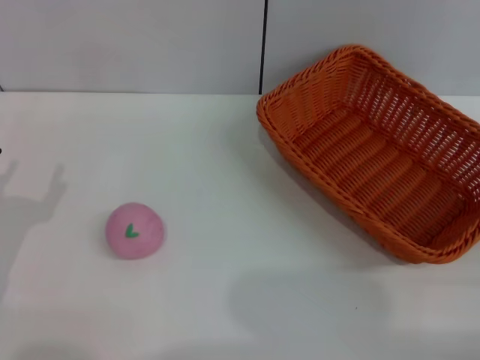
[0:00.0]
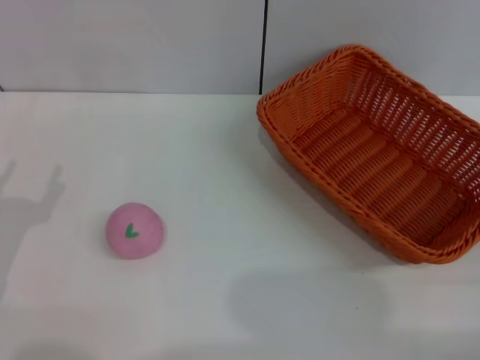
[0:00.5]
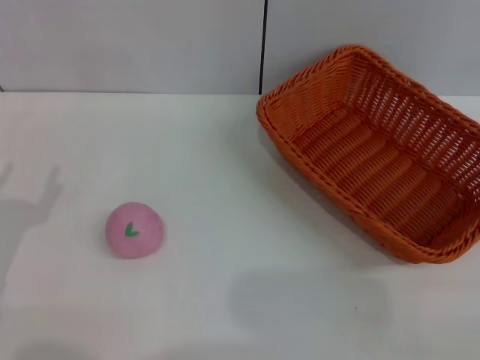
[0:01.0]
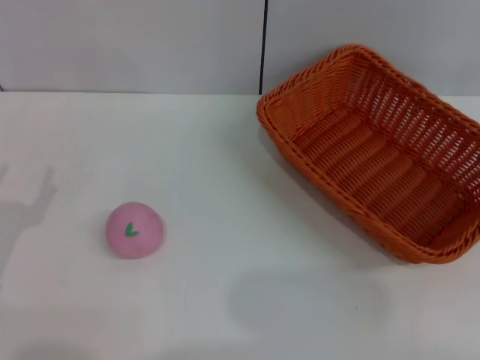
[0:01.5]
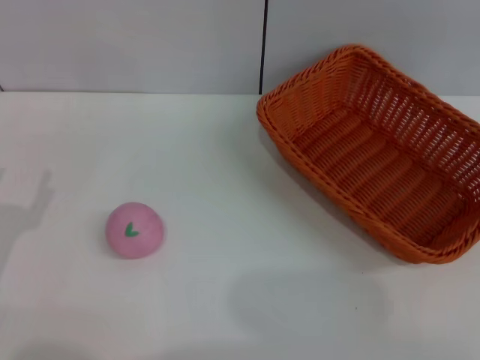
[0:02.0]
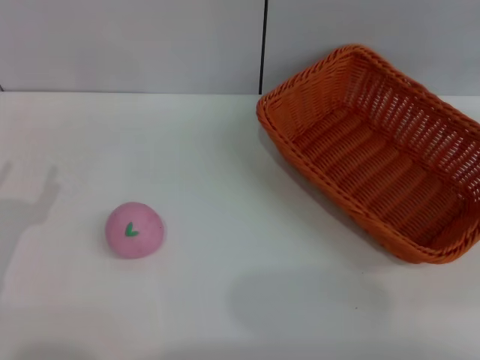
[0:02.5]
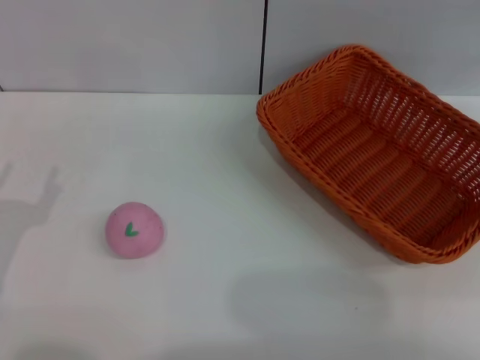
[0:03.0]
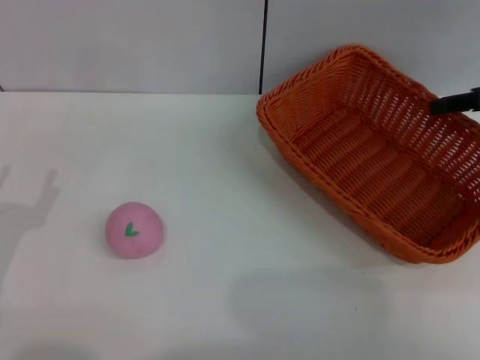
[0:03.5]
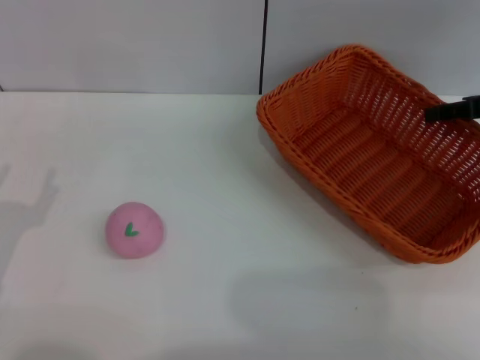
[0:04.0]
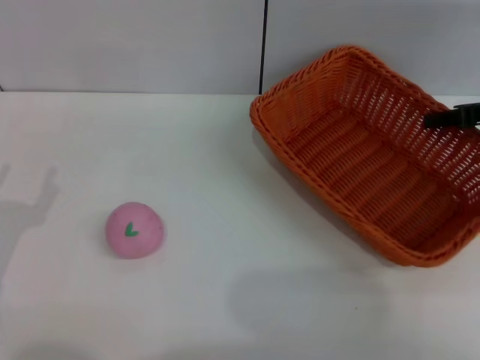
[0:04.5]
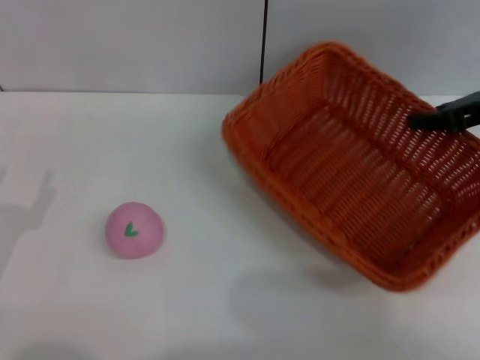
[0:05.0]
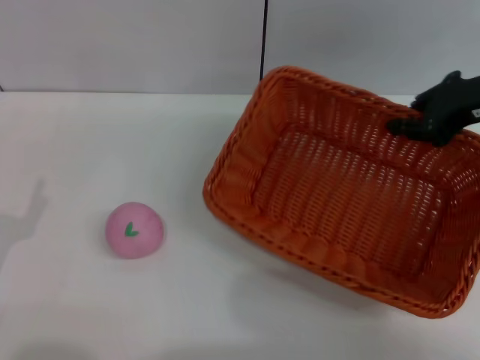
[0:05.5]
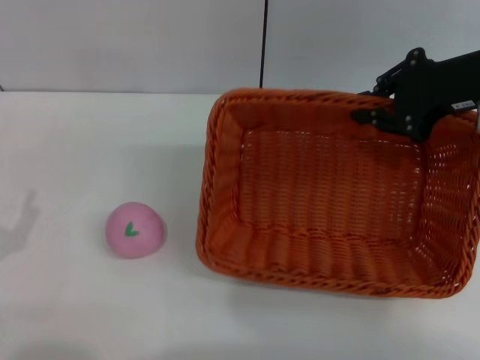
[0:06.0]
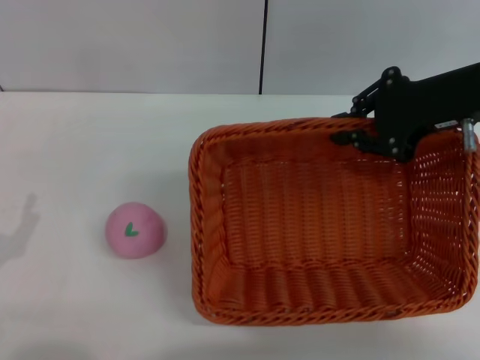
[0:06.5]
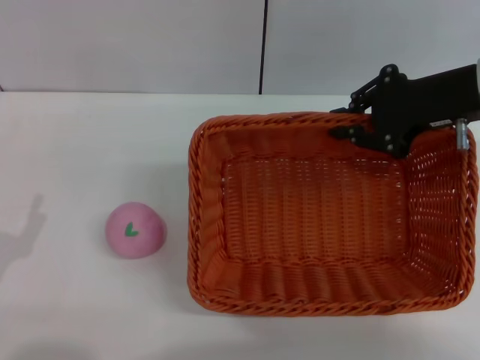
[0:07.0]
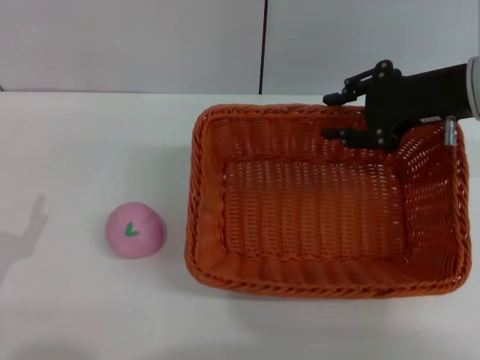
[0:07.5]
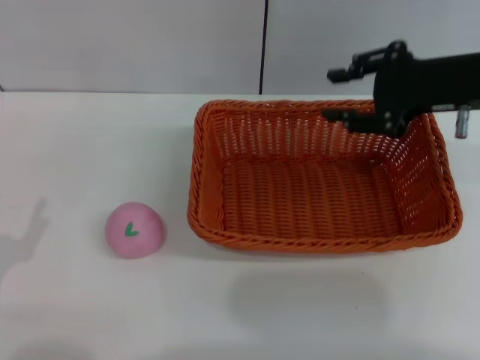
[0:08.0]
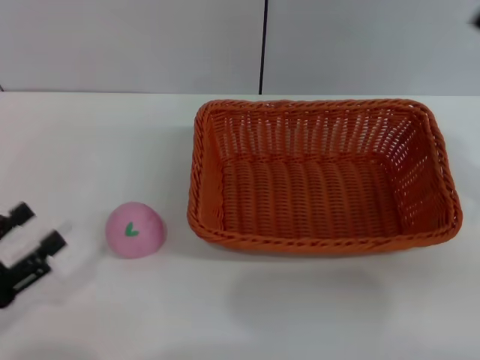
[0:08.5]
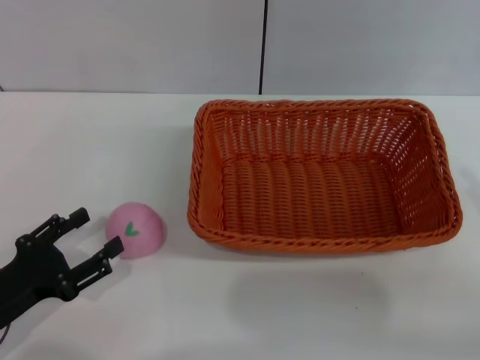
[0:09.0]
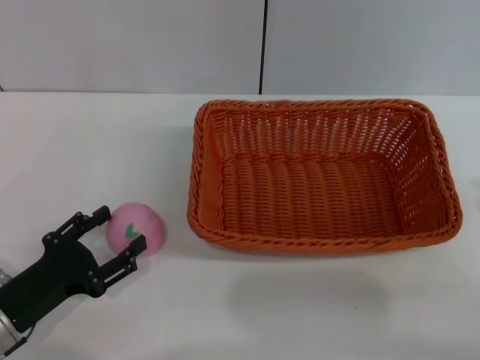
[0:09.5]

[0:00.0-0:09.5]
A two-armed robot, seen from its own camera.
Step, 0:05.0 to 0:07.5: Place the basket in the center of view with right gripper.
0:02.0 to 0:04.0: The right gripper travels to the left, forward and downward by some 15 cm.
0:04.0 to 0:05.5: The right gripper goes approximately 5 cm to the left, and closes its fingers.
0:05.5 to 0:07.5: The right gripper opens.
0:07.5 to 0:09.5: The right gripper travels backward, to the right and downward by approximately 25 cm, and opens up, while the left gripper moves some 5 cm.

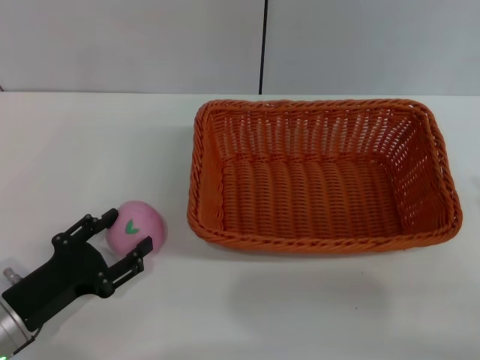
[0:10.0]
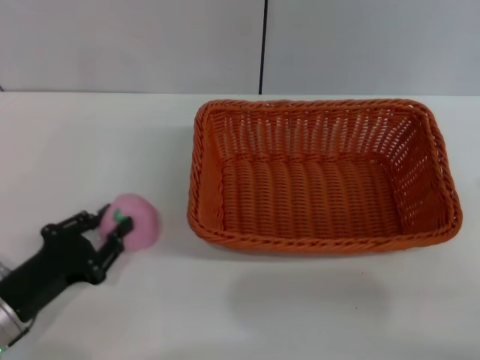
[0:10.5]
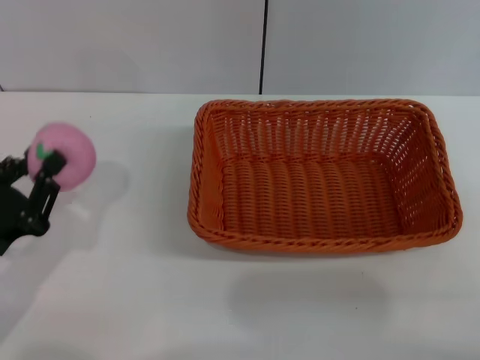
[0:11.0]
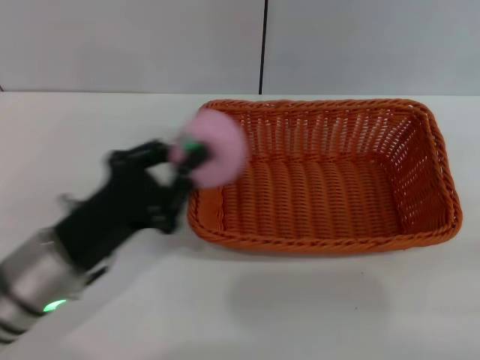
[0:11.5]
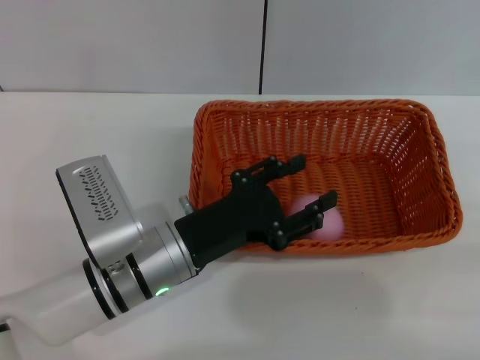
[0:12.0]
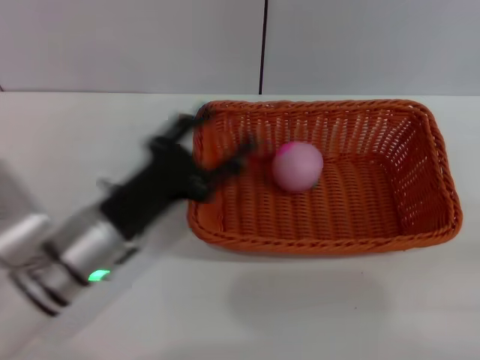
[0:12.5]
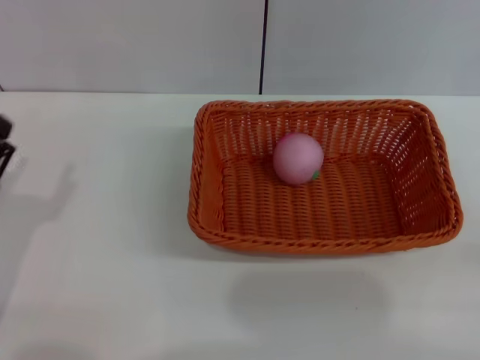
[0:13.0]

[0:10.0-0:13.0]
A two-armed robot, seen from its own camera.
Step, 0:10.5 to 0:12.0: Place the peach in the dark basket with left gripper.
0:10.0 to 0:11.5: The left gripper heads to the right and upward, covering some 10 cm, and closes; the right gripper changes place by approximately 5 cm.
0:11.5 to 0:13.0: The left gripper goes about 10 cm to the left, and opens.
